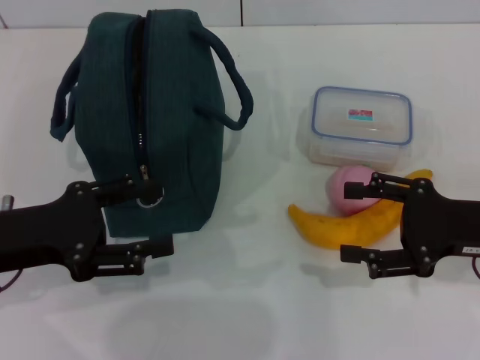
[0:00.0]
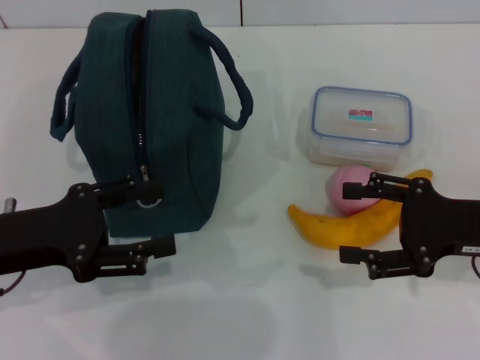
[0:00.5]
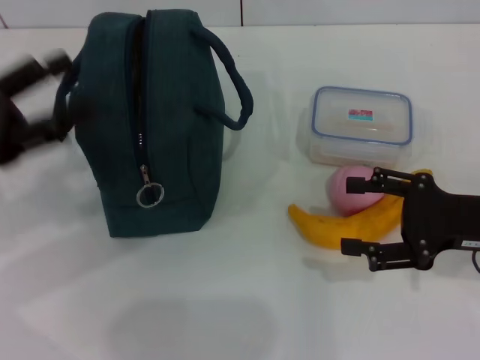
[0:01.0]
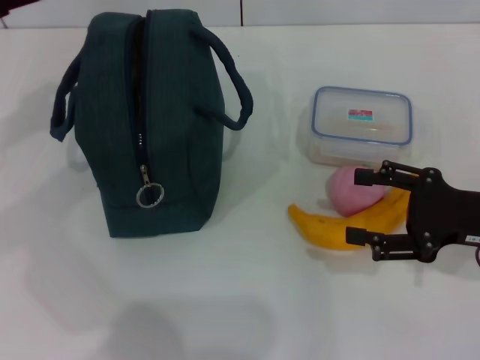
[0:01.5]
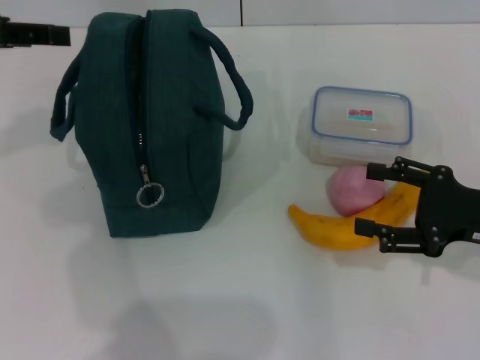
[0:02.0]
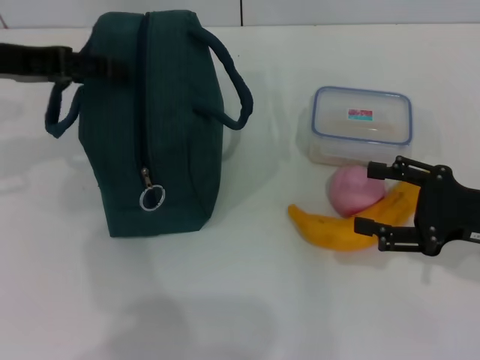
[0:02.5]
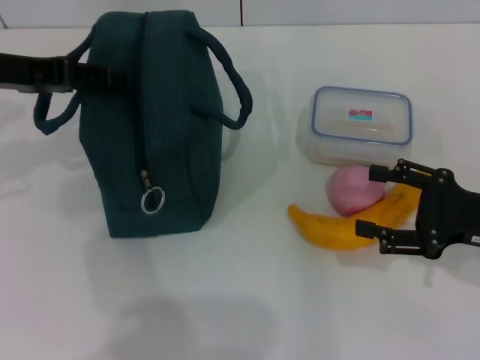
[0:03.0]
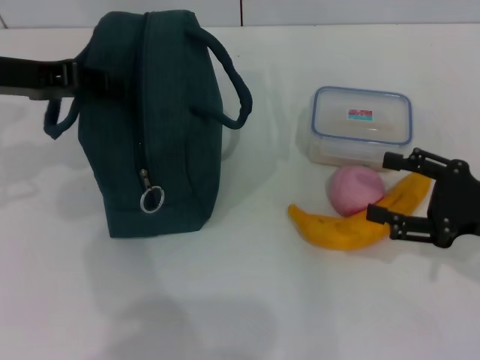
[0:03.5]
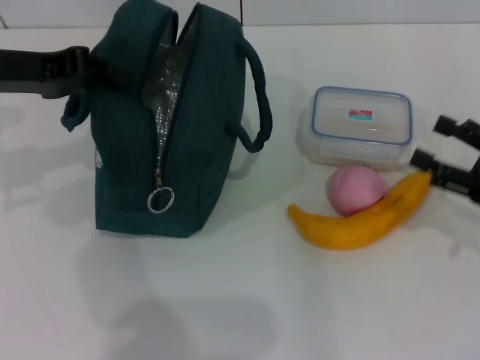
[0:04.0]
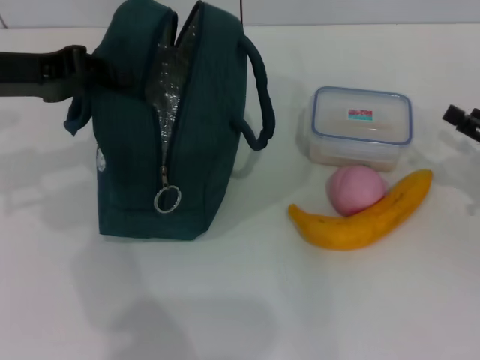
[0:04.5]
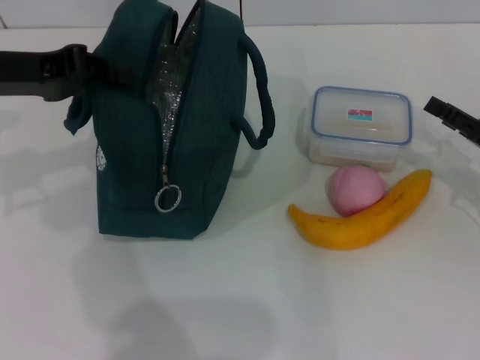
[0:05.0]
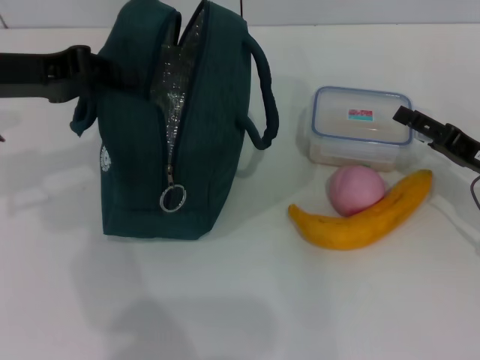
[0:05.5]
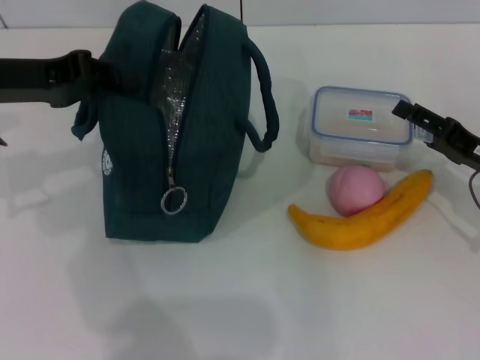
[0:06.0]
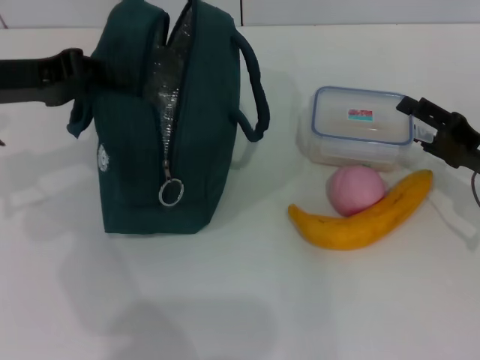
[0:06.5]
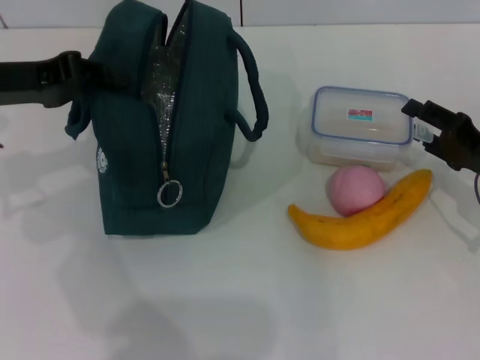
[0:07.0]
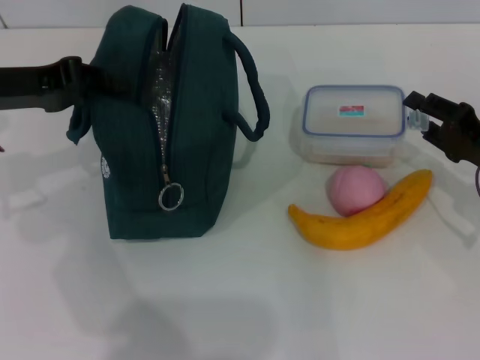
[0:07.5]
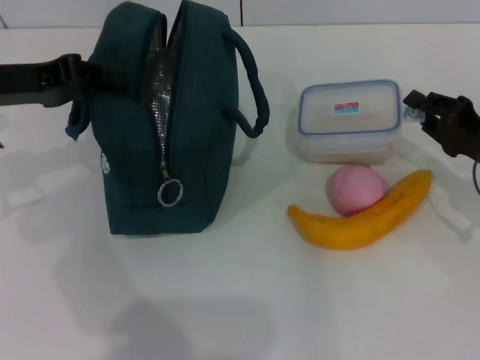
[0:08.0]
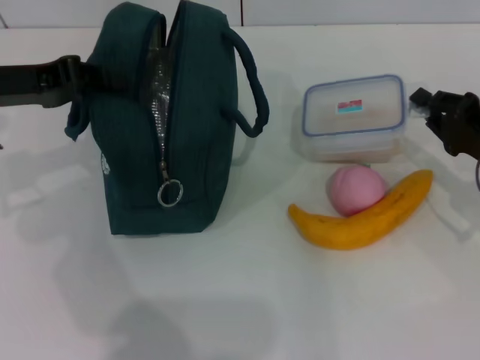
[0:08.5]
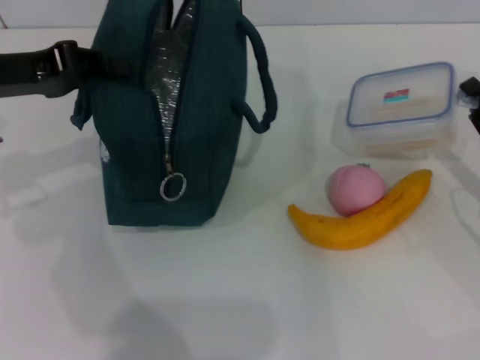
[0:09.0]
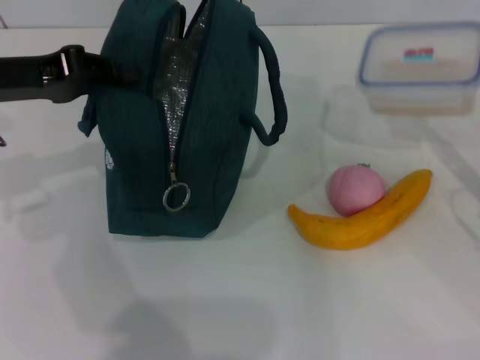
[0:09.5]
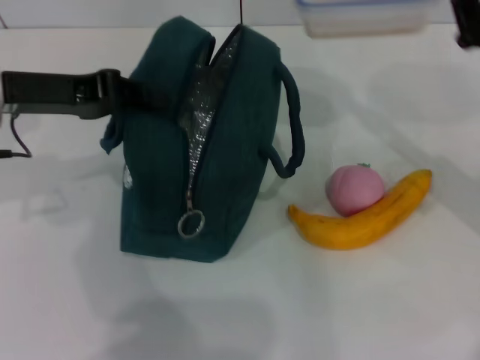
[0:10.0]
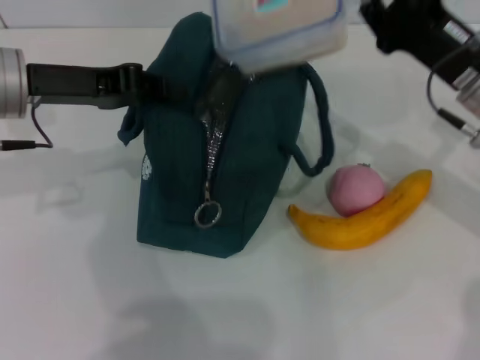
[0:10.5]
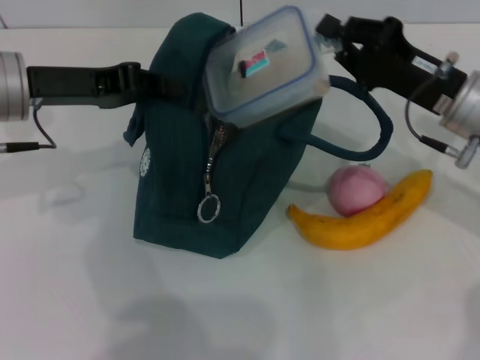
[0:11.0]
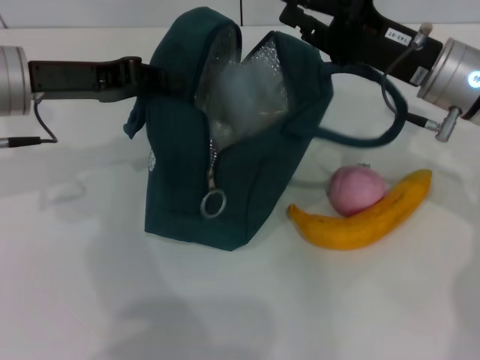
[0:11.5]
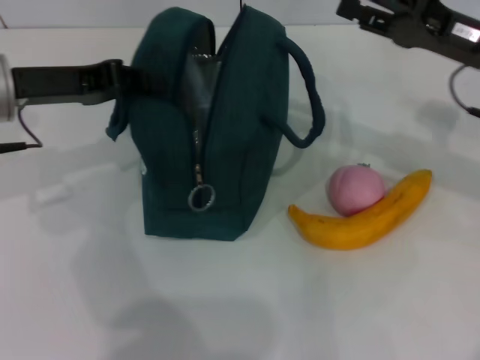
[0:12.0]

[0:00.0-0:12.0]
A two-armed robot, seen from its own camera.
Step, 0:00.0 to 0:03.5: Hold the lunch bag with your left hand.
Step, 0:04.0 to 0:08.0: Pick up the lunch box with your right hand.
Step, 0:08.5 to 0:11.5: Place the lunch box into the lunch bag with your right hand.
0:00.0 to 0:02.0: The left gripper heads upward and forward, covering approximately 15 cm.
0:02.0 to 0:04.0: The left gripper shifts by roughly 5 cm, and closes its fingers.
0:04.0 to 0:06.0: The right gripper travels forward by about 5 cm.
0:06.0 to 0:08.0: The right gripper closes its fingers.
0:08.0 to 0:10.0: The right gripper moves upward, roughly 5 cm.
0:10.0 to 0:12.0: The right gripper moves some 10 cm to the left and comes back, and opens its fingers.

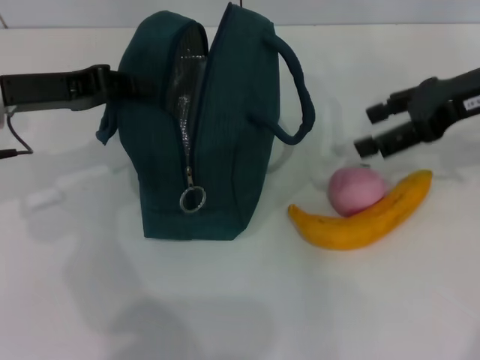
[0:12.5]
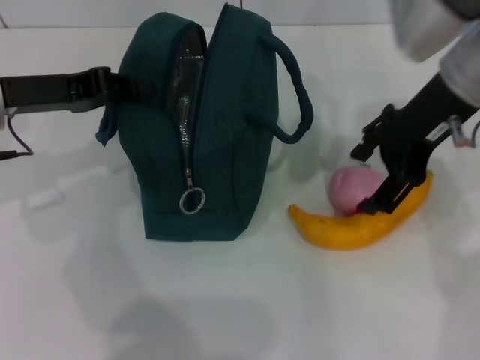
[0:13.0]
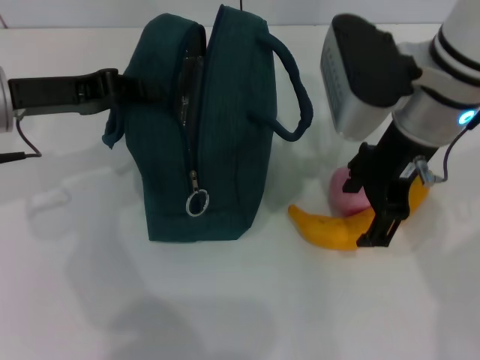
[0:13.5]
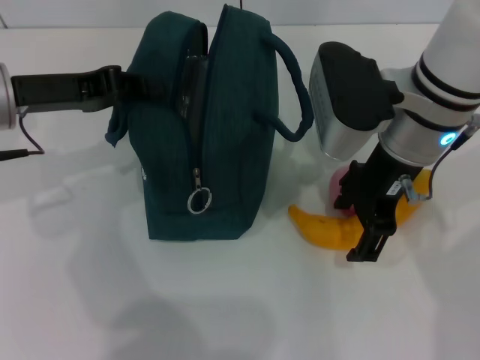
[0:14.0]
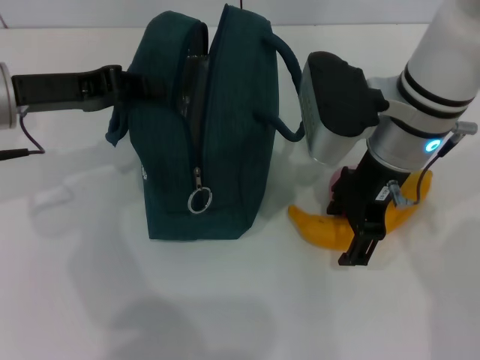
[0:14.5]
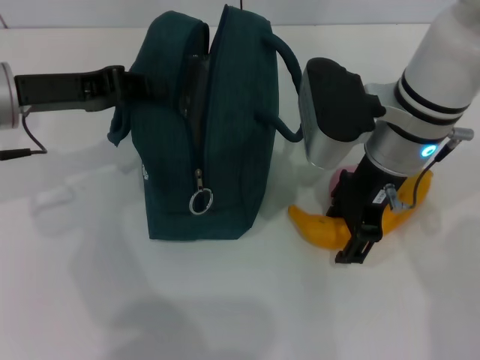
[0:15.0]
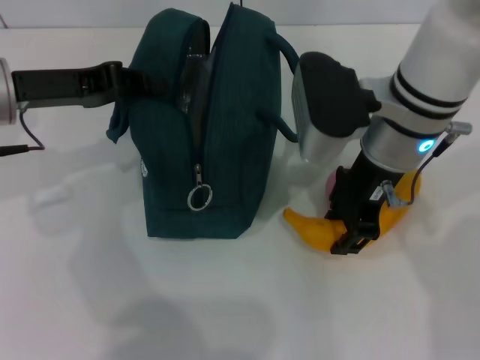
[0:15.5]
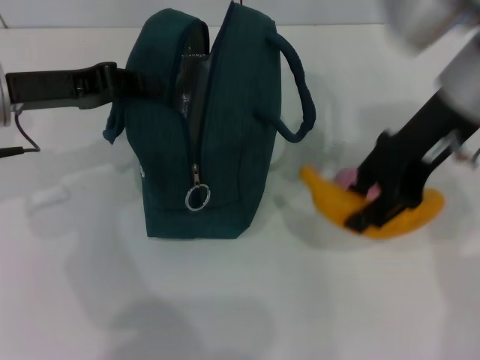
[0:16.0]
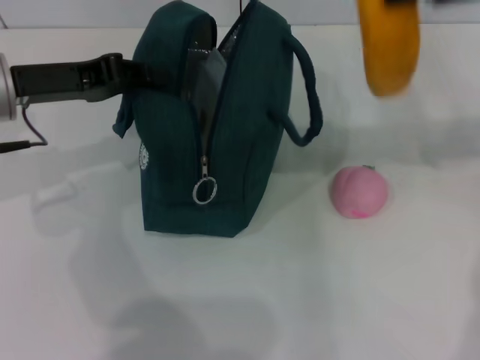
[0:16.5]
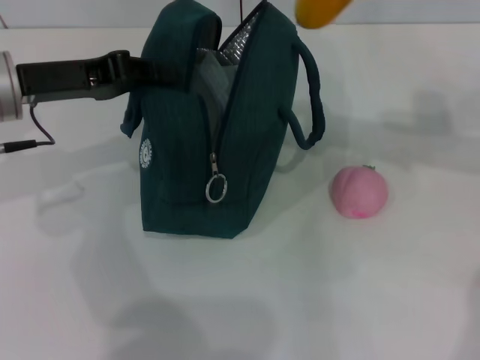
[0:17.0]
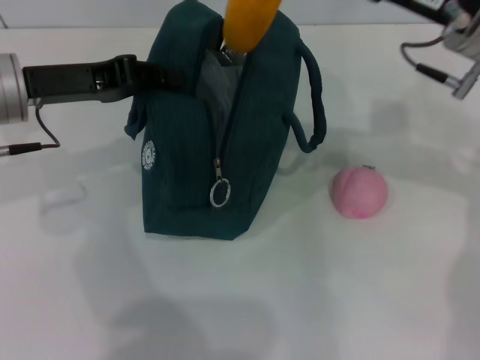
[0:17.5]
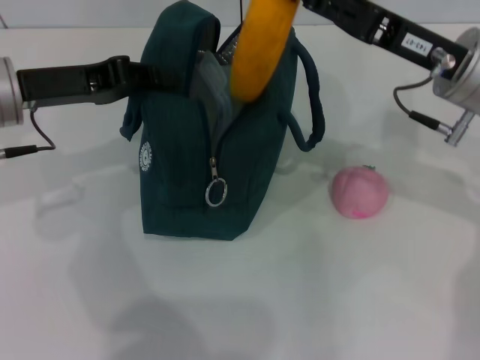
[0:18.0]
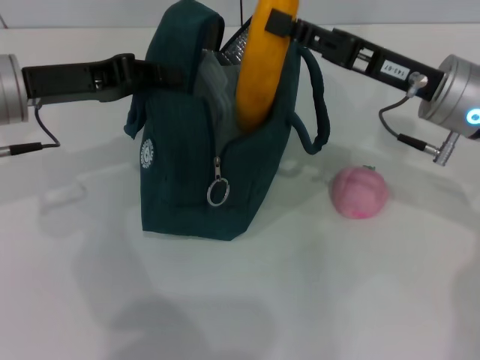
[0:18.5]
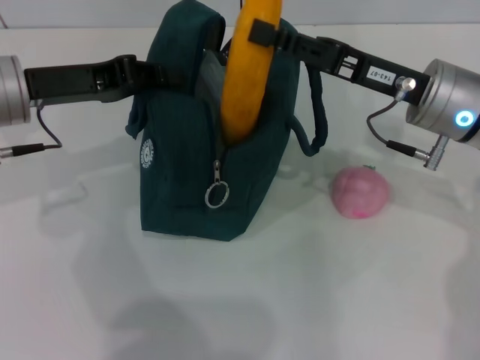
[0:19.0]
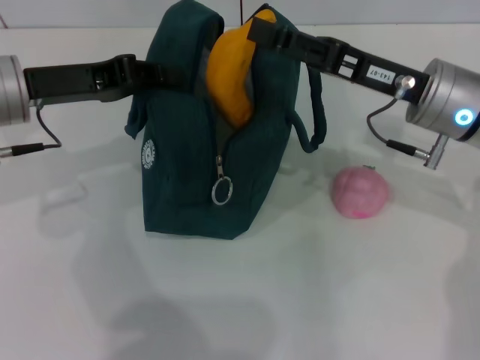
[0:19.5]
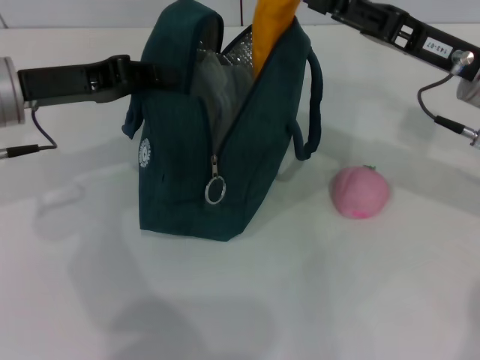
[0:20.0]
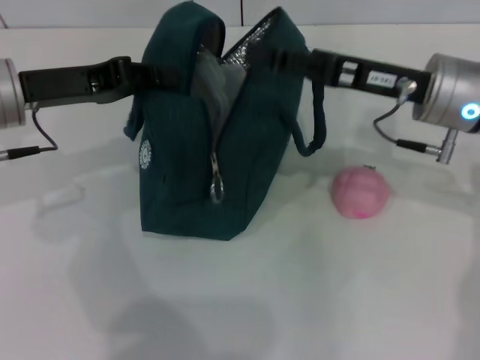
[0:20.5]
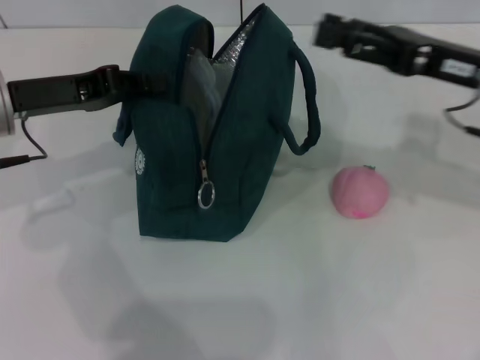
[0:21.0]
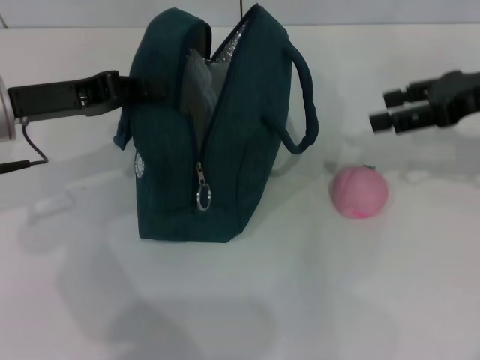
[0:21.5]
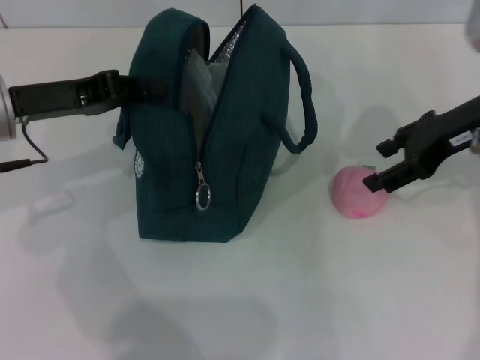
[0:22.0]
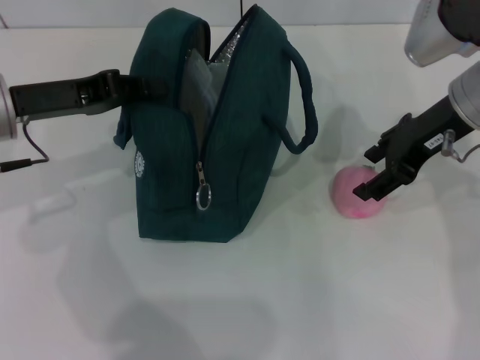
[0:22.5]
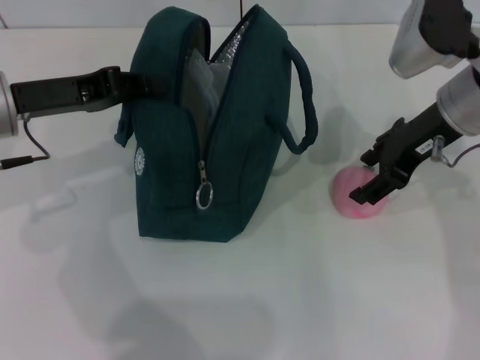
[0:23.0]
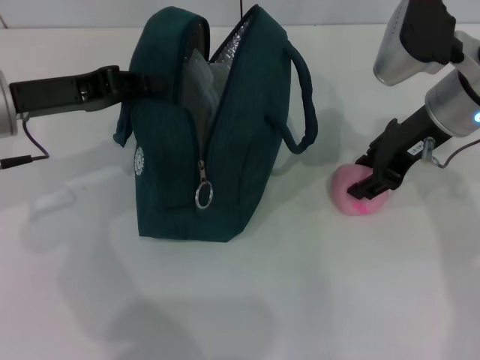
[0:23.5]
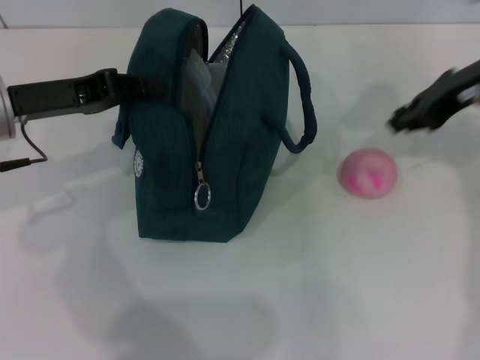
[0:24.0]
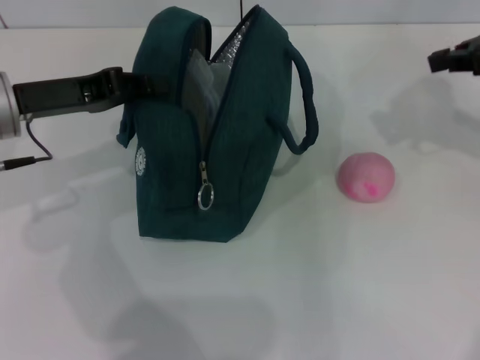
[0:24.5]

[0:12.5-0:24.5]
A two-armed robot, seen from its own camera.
Step, 0:12.5 to 0:15.0: Take the banana with your right hand.
Step, 0:15.5 to 0:20.5: Put the banana into the lunch bag with your right hand.
0:12.5 to 0:14.5: The right gripper travels to the left by roughly 15 cm.
0:14.5 to 0:16.5: The right gripper travels to the right and upward by approximately 20 cm, and closes.
0:16.5 to 0:18.5: The right gripper is displaced downward and to the left by roughly 20 cm.
0:18.5 to 0:20.5: The right gripper opens.
0:20.5 to 0:22.5: The right gripper travels to the right and back again, roughly 10 cm each way.
0:22.5 to 0:24.5: The right gripper shifts roughly 10 cm to the right and upward, and closes its fingers.

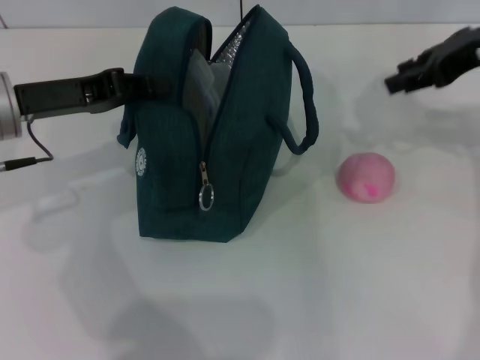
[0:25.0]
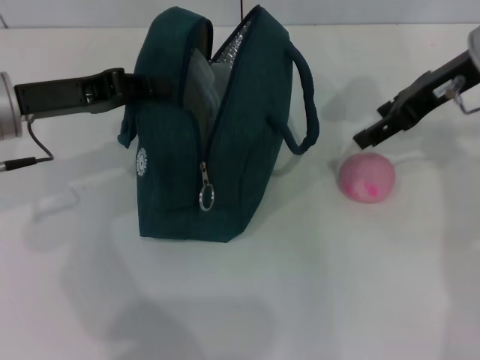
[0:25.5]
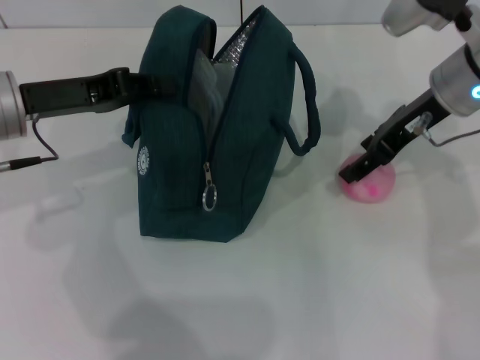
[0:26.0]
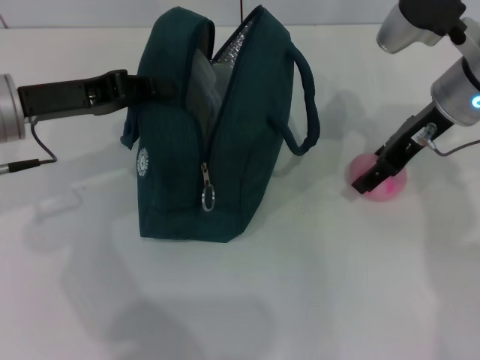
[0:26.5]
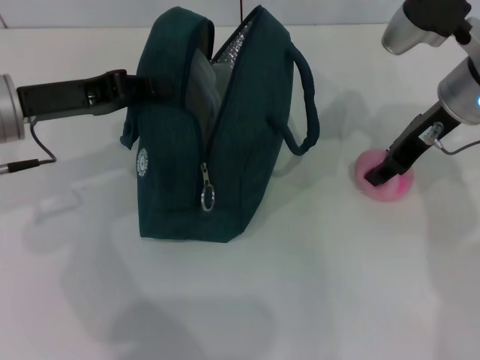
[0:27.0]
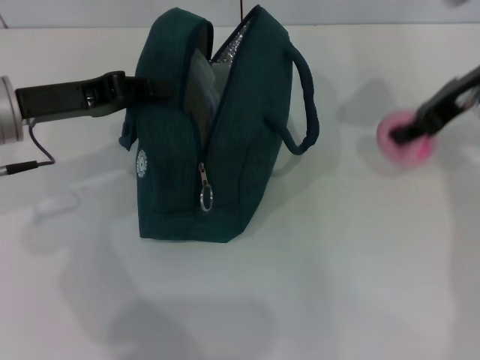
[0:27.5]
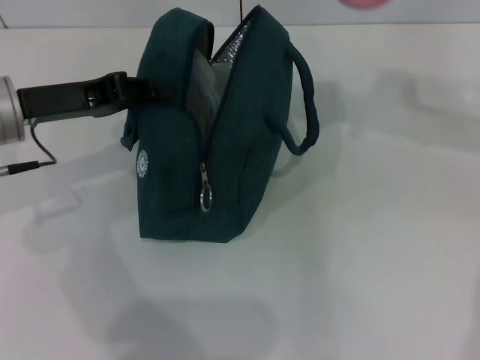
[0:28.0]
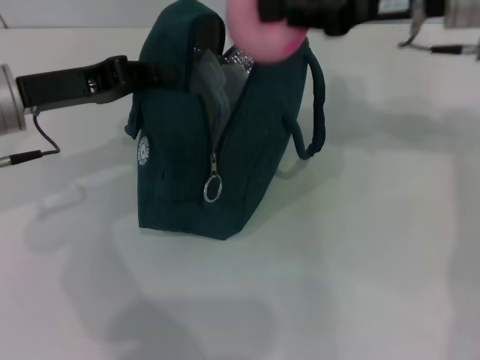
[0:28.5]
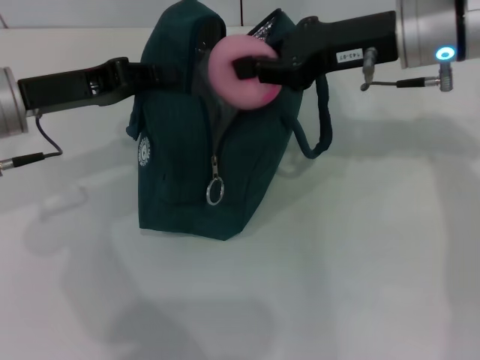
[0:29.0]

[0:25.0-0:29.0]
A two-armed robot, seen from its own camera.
Step, 0:25.0 to 0:27.0: Grab the peach with your right hand.
0:25.0 to 0:27.0: The right gripper goes approximately 10 cm downward and to the left.
0:27.0 to 0:29.0: The right gripper closes its fingers.
